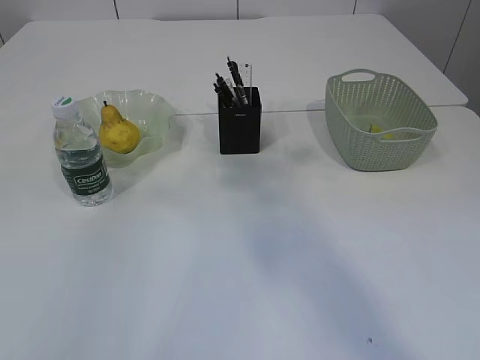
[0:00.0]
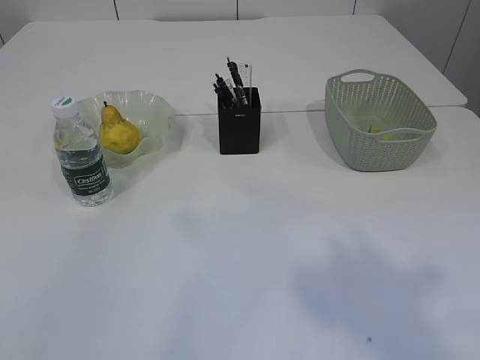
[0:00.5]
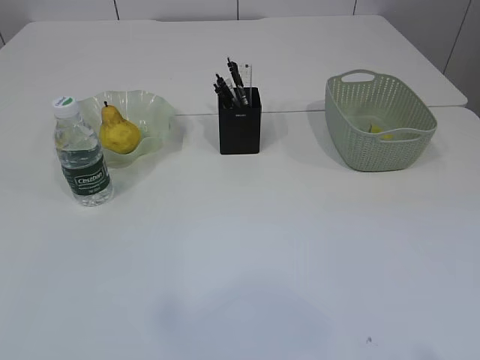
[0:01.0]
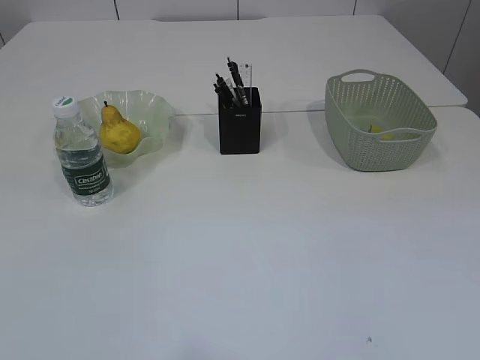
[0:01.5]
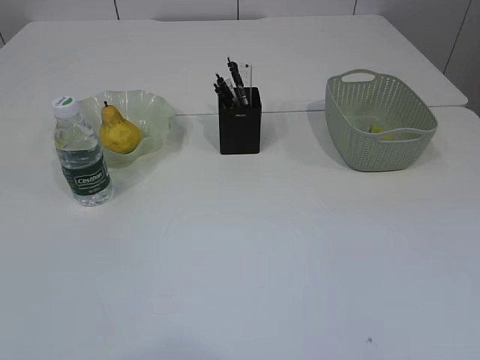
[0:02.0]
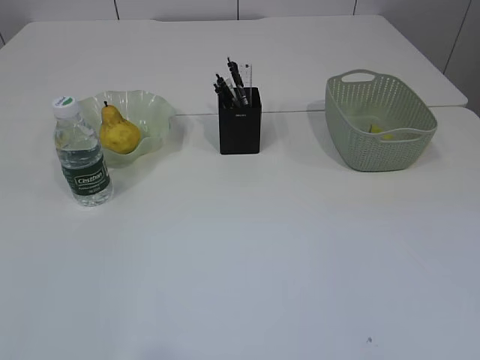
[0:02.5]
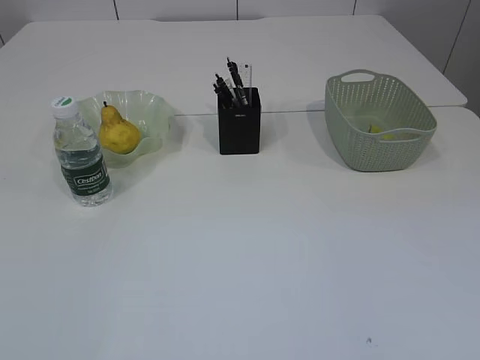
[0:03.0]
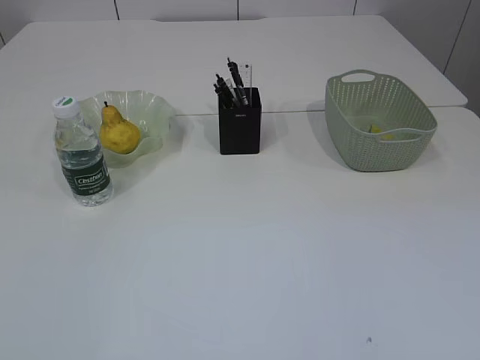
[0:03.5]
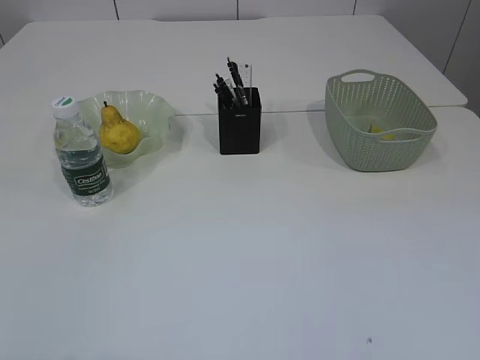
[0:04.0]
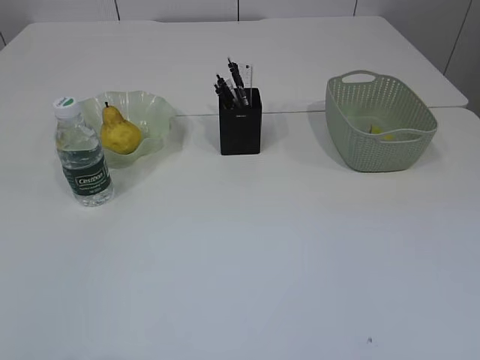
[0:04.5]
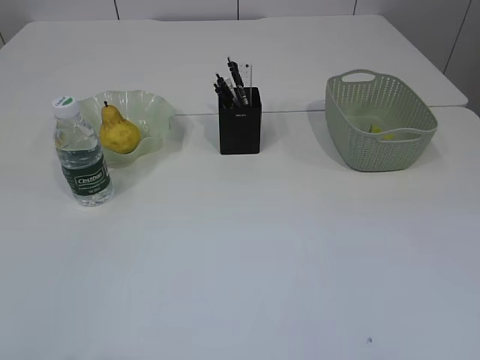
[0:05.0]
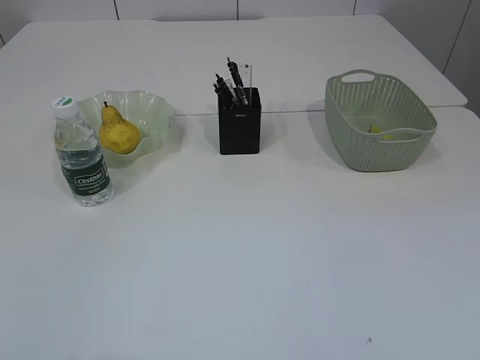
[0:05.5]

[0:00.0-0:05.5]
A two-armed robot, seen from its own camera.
0:00.0 to 0:02.0: The right gripper is displaced backward and downward by roughly 35 cm, and opens its fingers; the left gripper shifts about 20 cm backward and downward, and opens its fingers.
